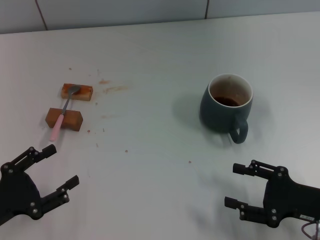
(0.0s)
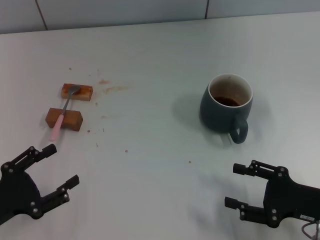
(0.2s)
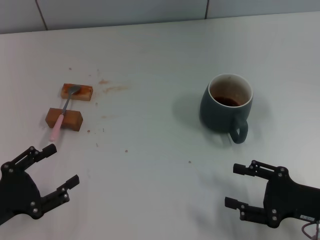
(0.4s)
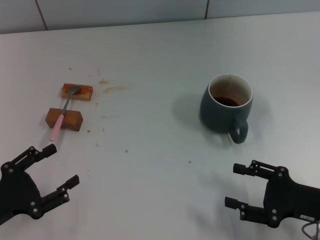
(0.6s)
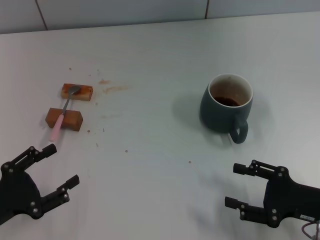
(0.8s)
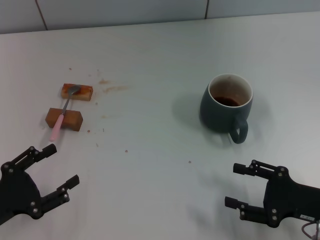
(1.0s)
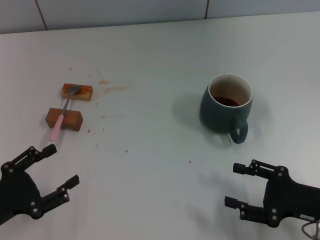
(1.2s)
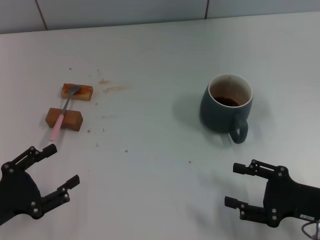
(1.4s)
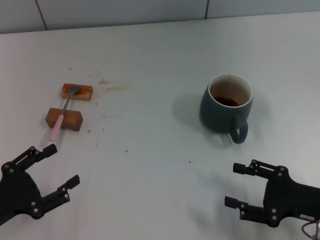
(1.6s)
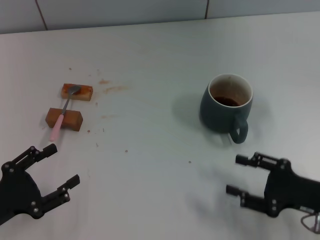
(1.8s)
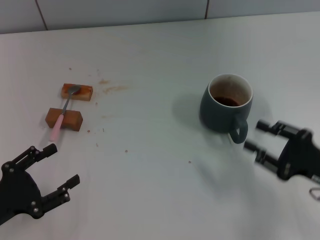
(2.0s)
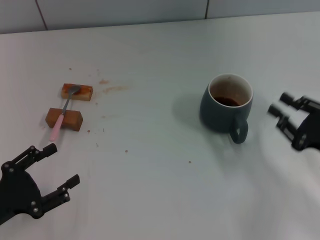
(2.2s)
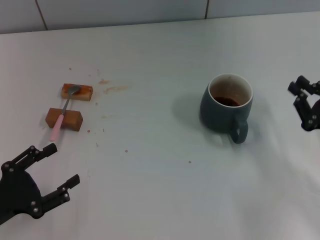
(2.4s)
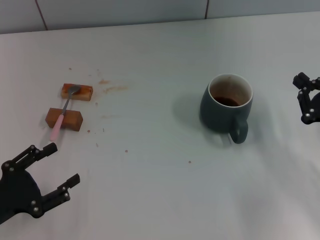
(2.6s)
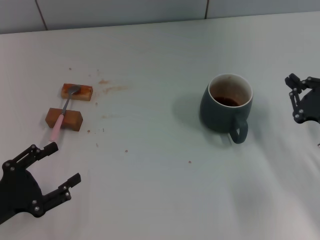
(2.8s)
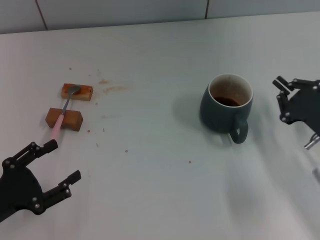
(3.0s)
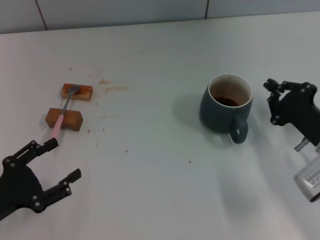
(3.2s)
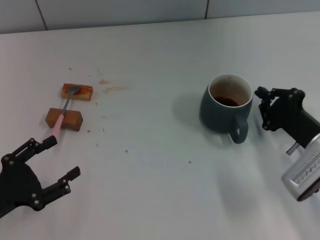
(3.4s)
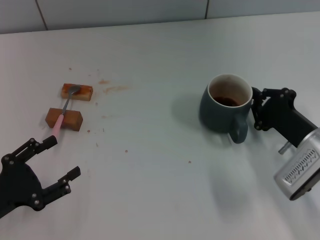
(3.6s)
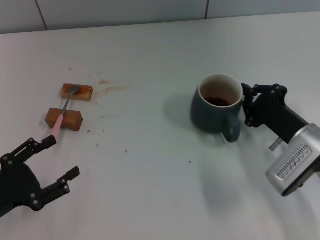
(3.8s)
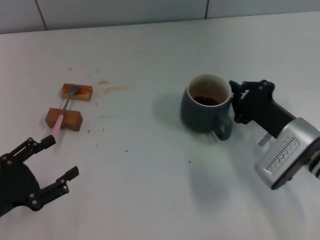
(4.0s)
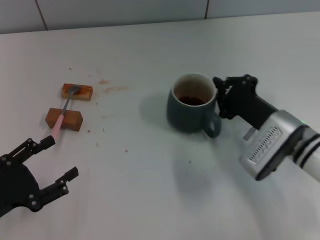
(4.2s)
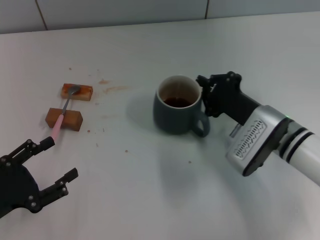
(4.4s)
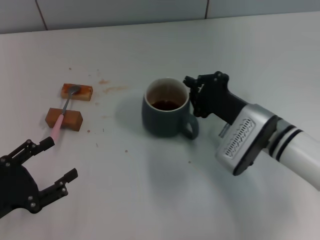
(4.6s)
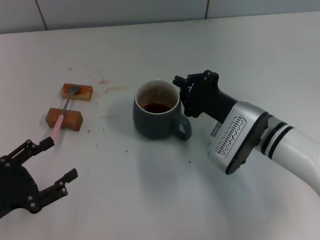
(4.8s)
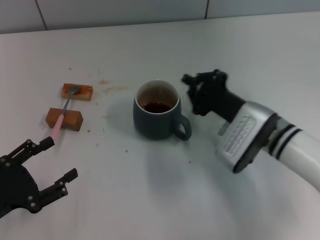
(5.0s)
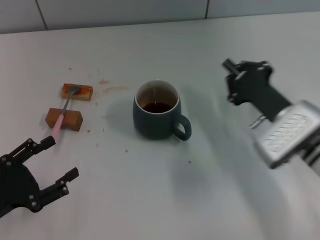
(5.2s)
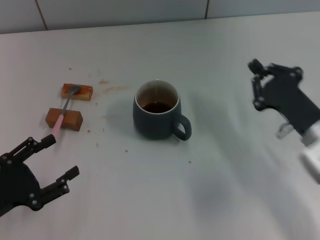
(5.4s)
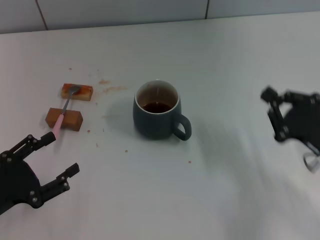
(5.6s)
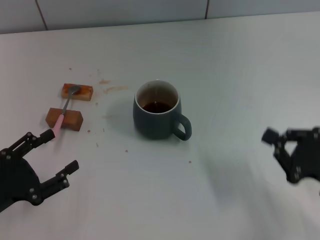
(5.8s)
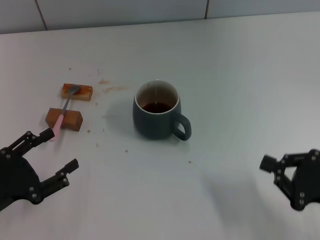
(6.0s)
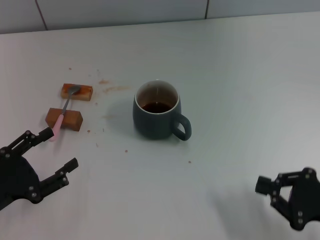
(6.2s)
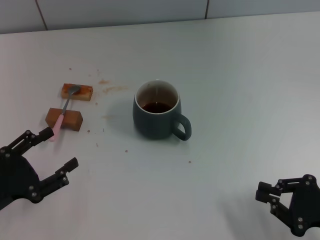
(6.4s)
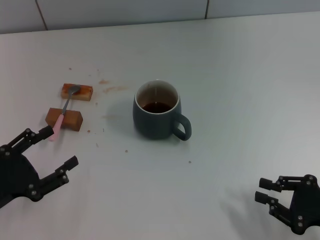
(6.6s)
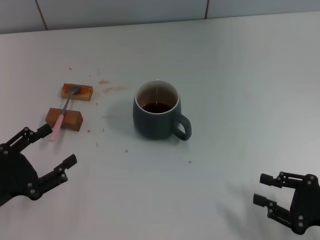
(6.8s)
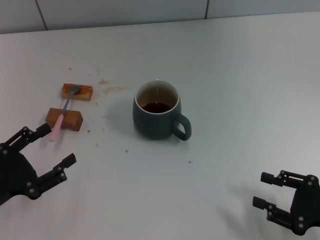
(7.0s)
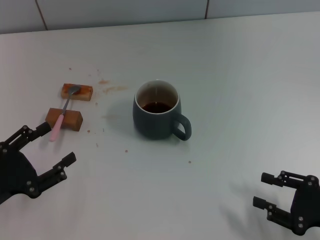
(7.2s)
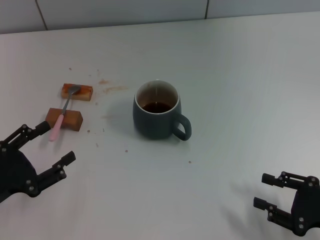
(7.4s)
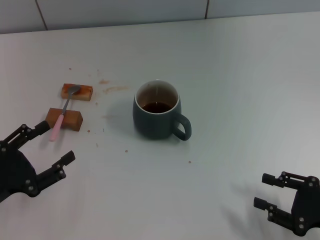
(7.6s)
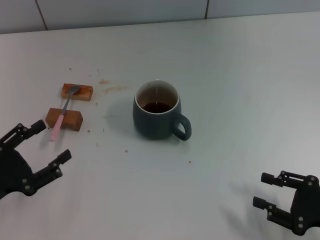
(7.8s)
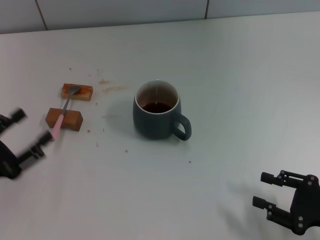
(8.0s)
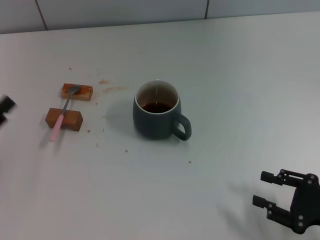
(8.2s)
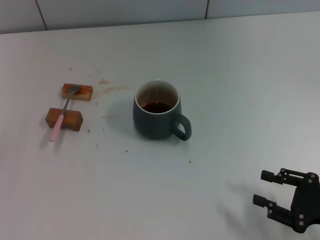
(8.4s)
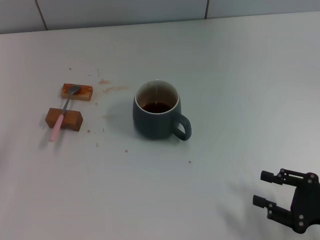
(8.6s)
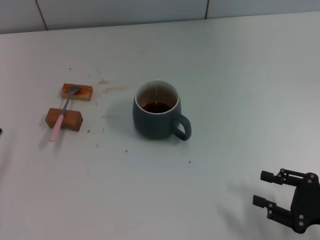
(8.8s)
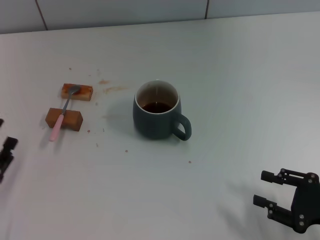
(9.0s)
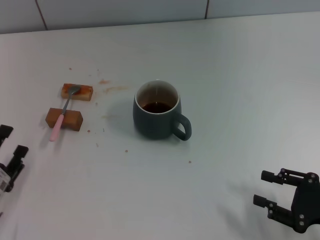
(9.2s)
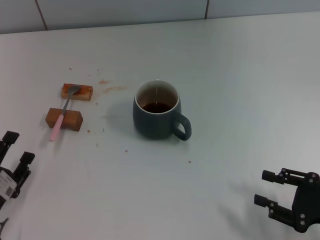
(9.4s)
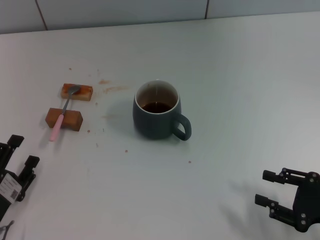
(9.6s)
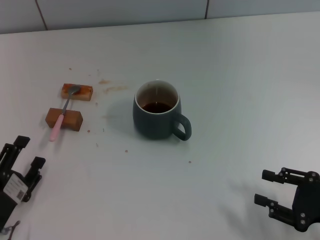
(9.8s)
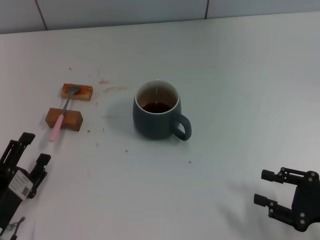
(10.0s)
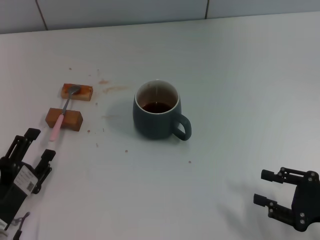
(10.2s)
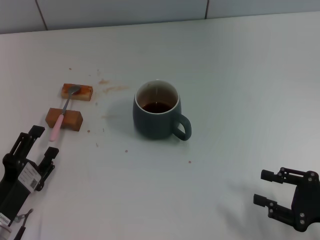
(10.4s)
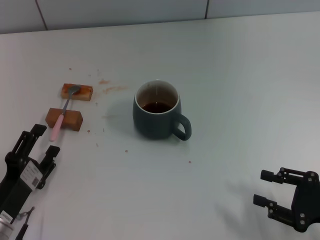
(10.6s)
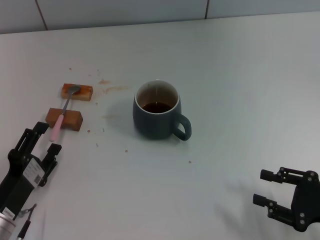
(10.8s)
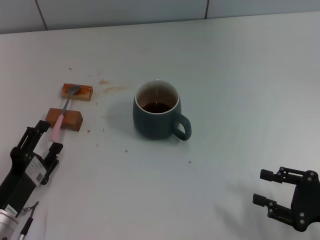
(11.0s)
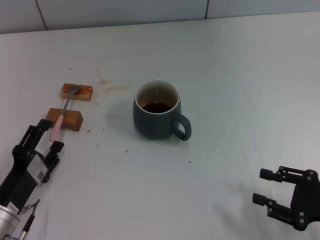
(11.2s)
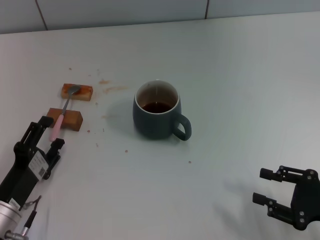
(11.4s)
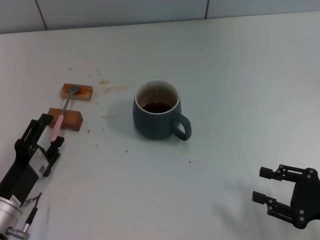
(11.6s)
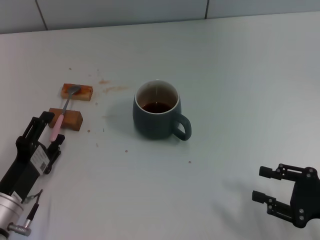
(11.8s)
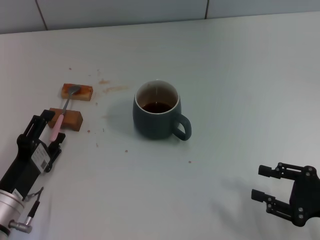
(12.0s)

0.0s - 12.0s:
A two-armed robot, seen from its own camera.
Task of the whole recording: Move the grey cup to the center, lift the pink spoon, stir it three times in the cup, and put the spoon into the cup.
Step, 0.0s - 5.0s: Move the cup with coffee to the center of view with the right gripper.
0.0s - 1.6s: Both grippers stay put.
1.6s - 3.0s: The right gripper goes about 10 cm forward, and closes.
3.0s - 4.4s: The right gripper goes approximately 10 cm to the left.
4.4s - 6.0s: The right gripper moves backward and to the right, approximately 20 cm.
6.0s - 7.6s: The right gripper opens up.
9.0s - 10.4s: The grippers stay close to where they were, moving slightly.
10.4s - 12.0s: There are only small adjustments of the grippers.

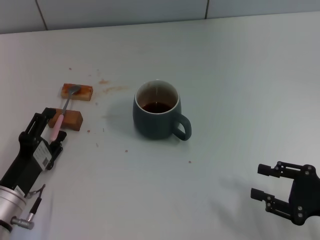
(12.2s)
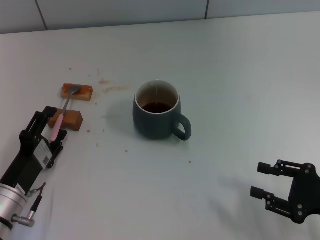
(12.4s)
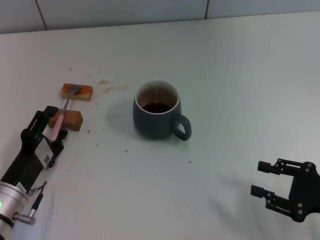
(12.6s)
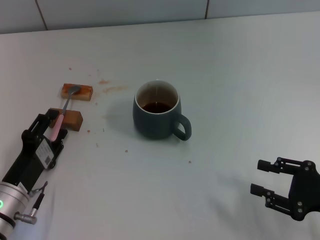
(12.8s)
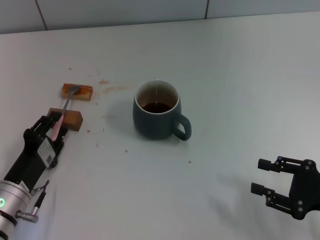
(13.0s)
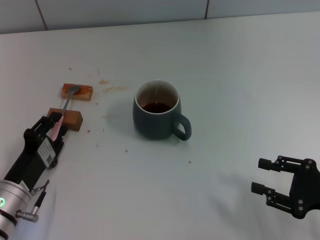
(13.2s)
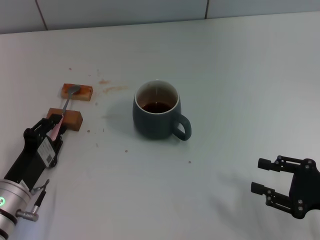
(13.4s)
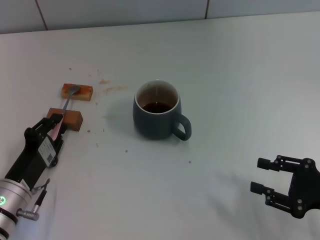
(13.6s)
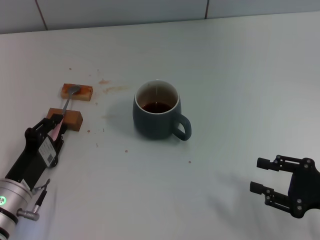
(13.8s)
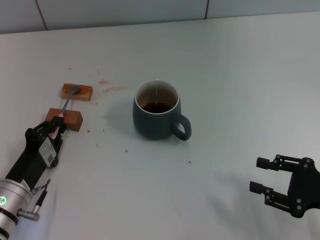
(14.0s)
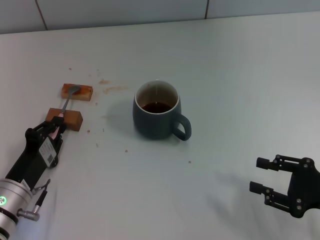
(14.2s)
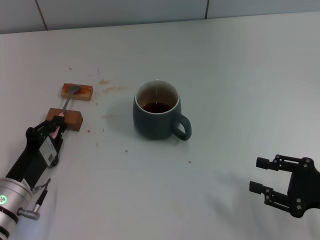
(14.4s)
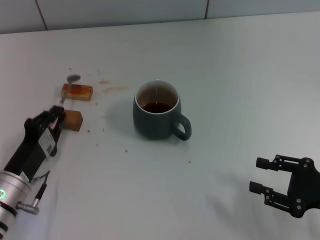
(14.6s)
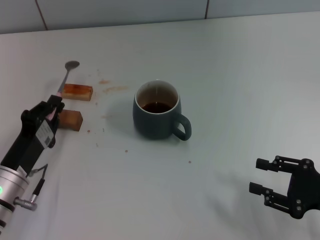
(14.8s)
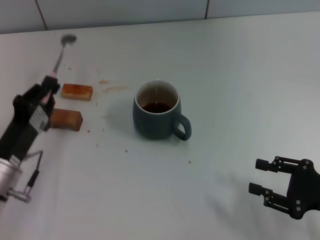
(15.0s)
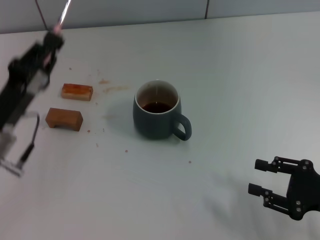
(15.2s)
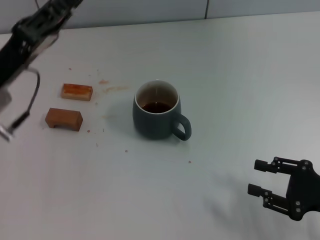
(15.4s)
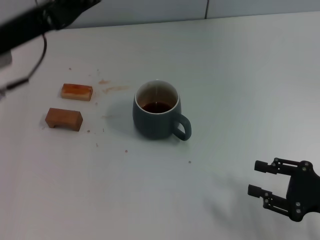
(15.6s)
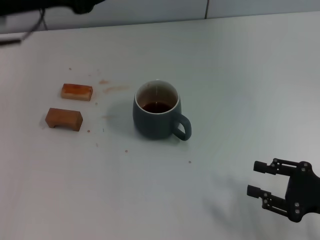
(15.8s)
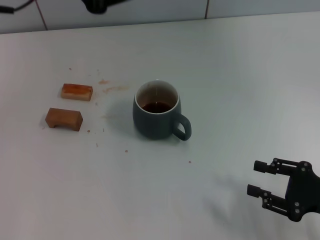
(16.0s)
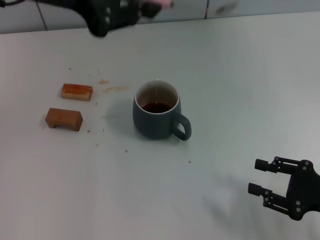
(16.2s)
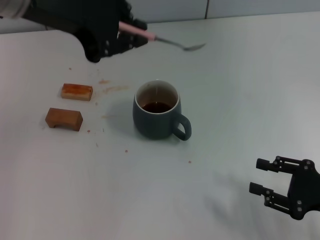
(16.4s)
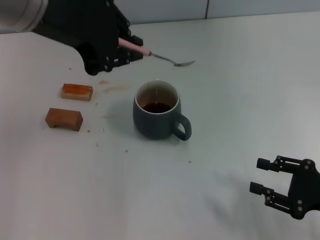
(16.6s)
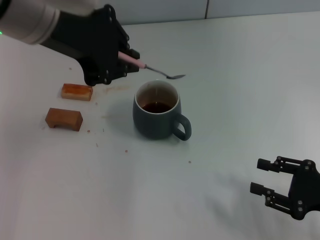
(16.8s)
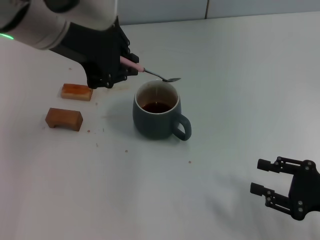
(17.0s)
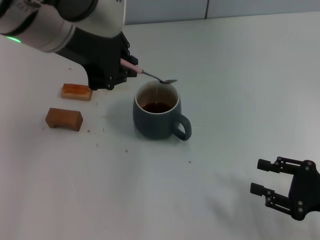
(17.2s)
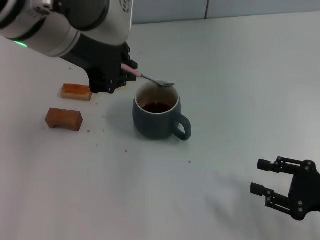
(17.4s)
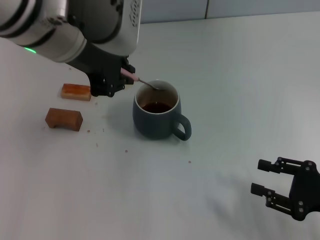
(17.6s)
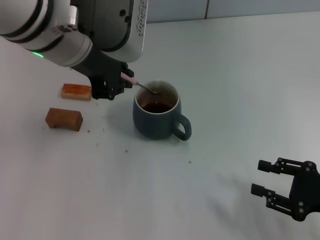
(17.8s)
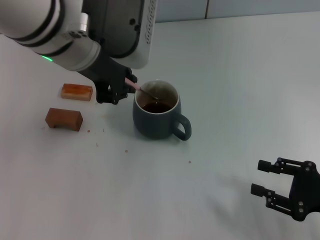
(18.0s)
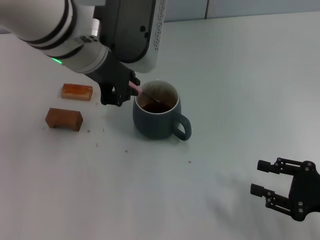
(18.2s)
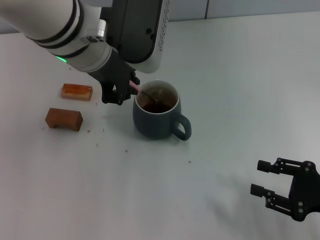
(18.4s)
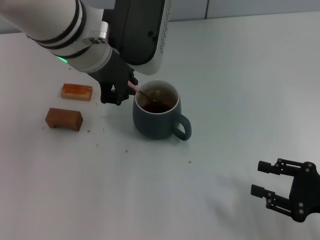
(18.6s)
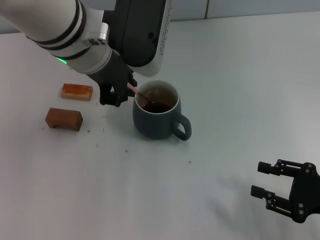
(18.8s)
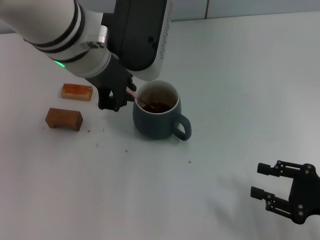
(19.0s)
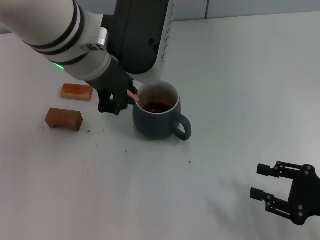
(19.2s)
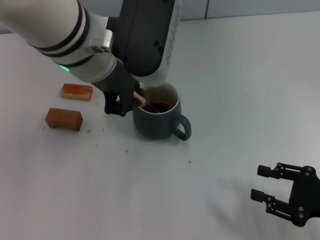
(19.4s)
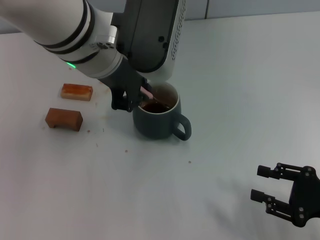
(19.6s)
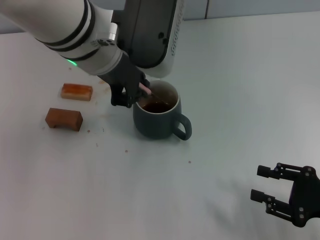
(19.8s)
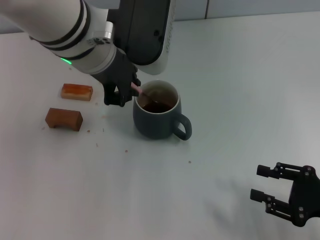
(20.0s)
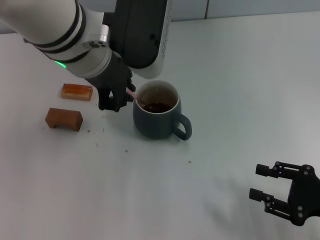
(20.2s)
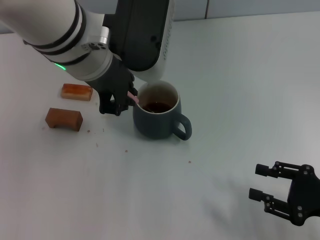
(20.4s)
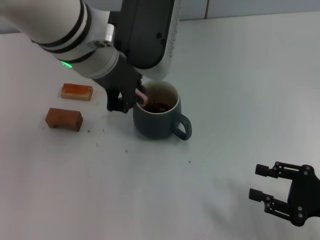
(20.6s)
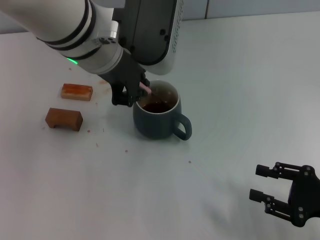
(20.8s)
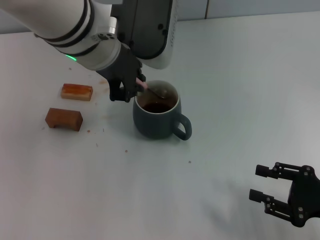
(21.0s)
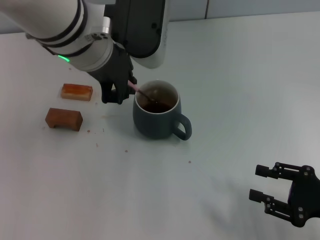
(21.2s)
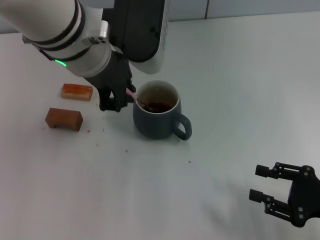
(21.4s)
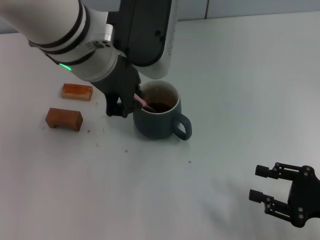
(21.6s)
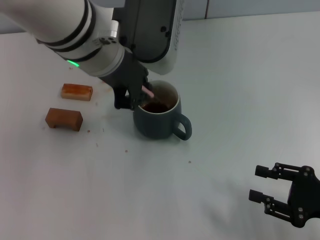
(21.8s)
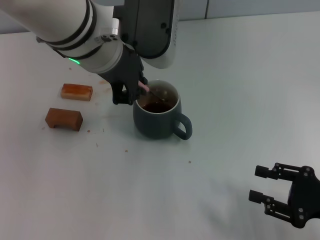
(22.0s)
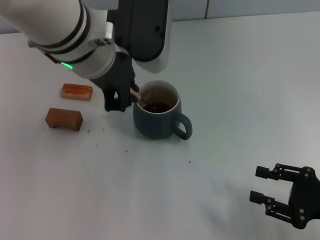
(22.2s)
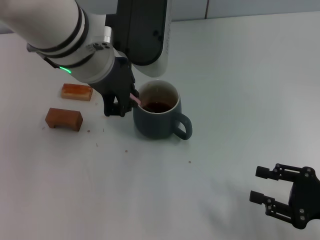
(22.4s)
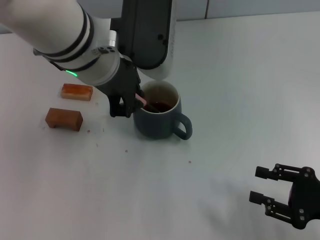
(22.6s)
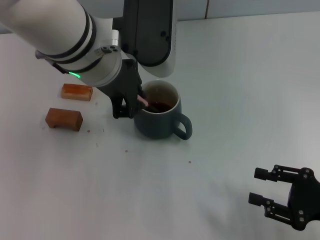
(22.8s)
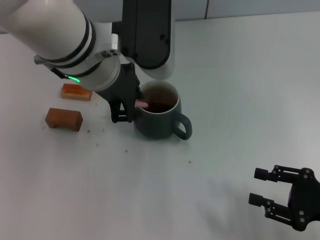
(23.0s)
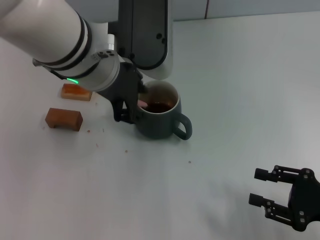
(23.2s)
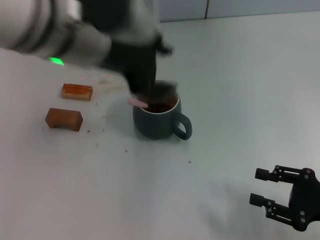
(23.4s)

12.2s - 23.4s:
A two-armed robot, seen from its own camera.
Task of the whole recording: Move the grey cup to the center, lift the pink spoon, stir it three times in the cup, and put the spoon into the cup.
Step, 12.2s - 14.6s: Pick up the spoon with the left gripper.
Step, 14.8s - 23.4s: Stir the coffee in the cup with the left gripper.
12.2s - 13.8s: The left gripper closes.
13.8s - 15.4s: The left gripper heads upward and forward, covering about 15 cm.
15.4s - 17.0s: The left gripper shifts approximately 20 cm upward and to the right.
17.0s - 18.6s: The left gripper shifts roughly 5 cm downward.
18.6s - 20.2s: There are only small adjustments of the grippers.
20.2s - 21.8s: Neither gripper changes place.
21.8s - 23.4s: The left gripper shifts by approximately 5 cm, and opens up.
